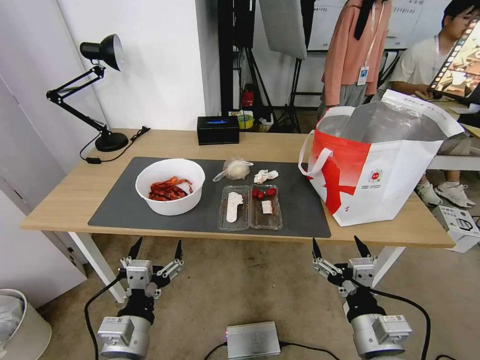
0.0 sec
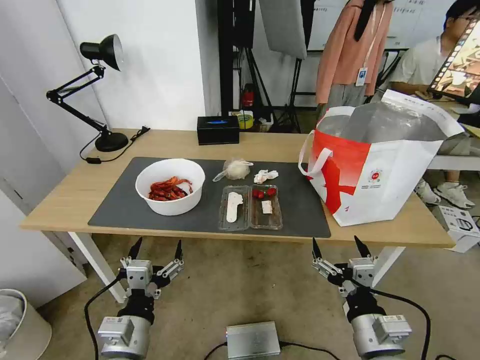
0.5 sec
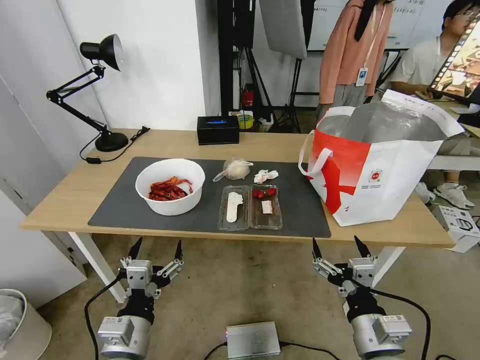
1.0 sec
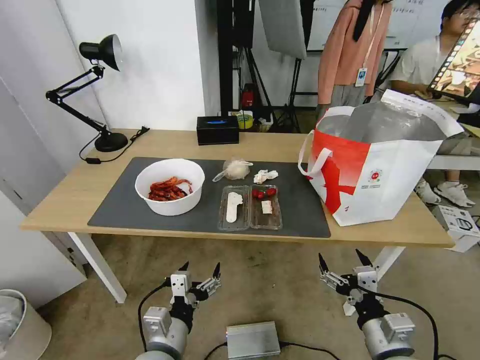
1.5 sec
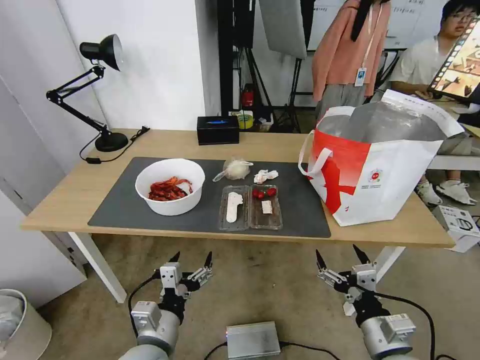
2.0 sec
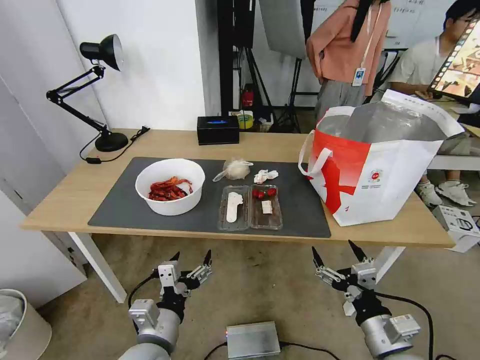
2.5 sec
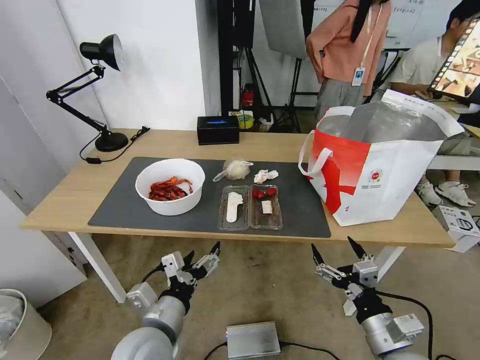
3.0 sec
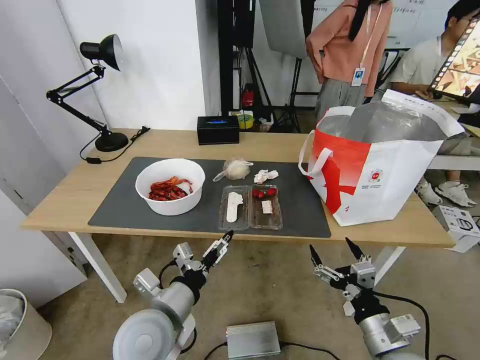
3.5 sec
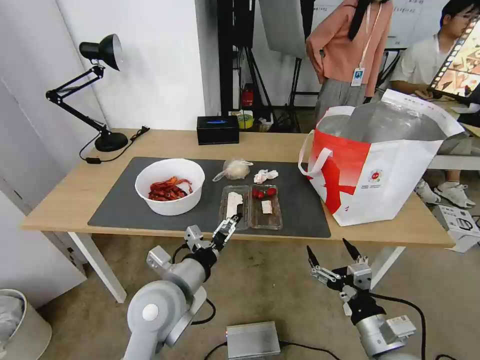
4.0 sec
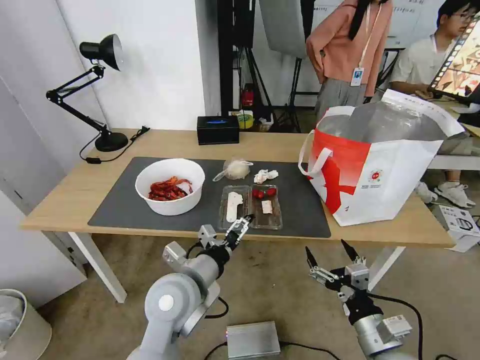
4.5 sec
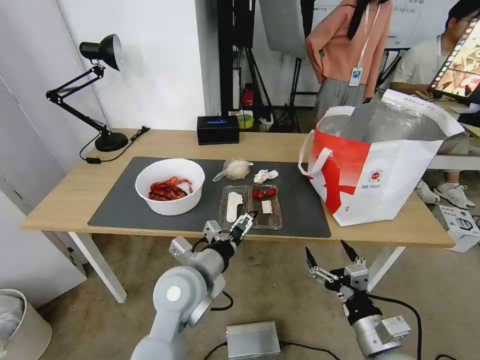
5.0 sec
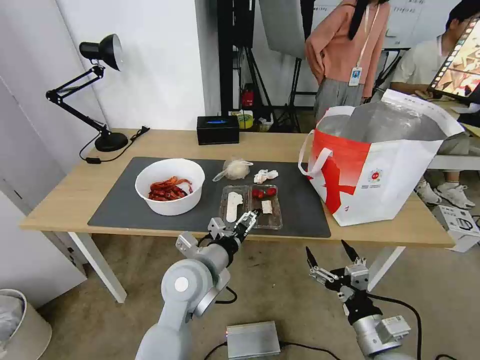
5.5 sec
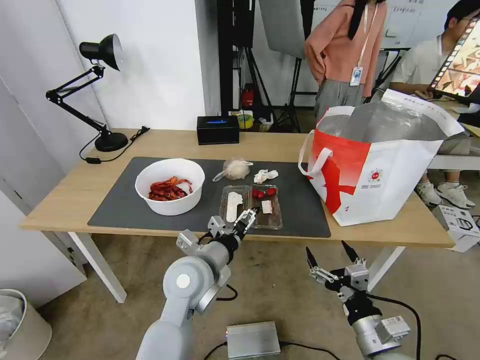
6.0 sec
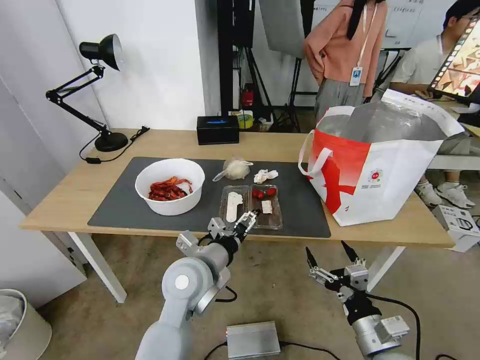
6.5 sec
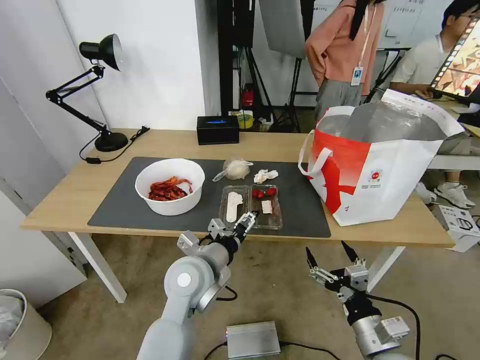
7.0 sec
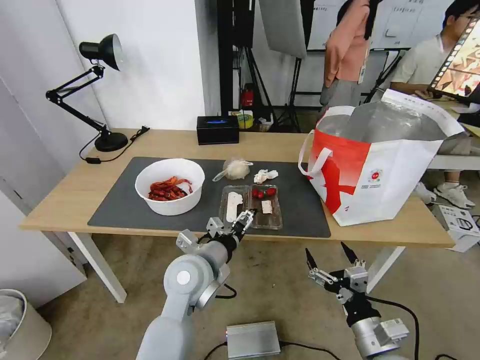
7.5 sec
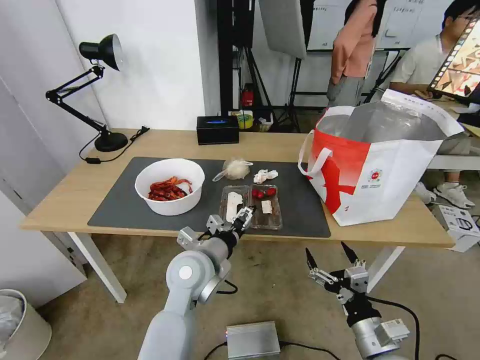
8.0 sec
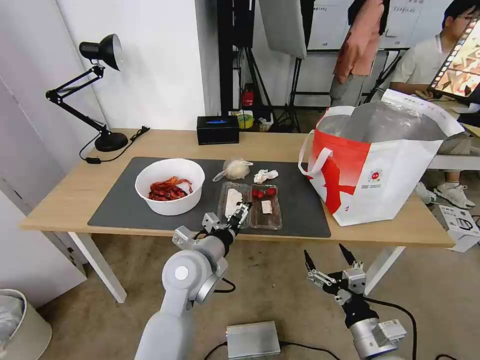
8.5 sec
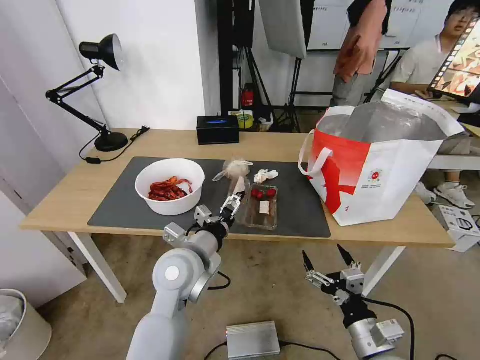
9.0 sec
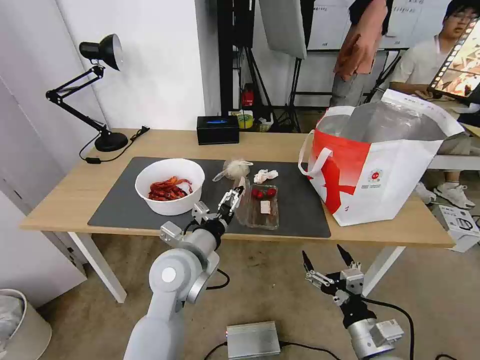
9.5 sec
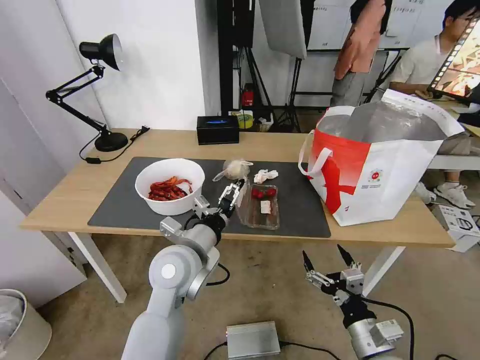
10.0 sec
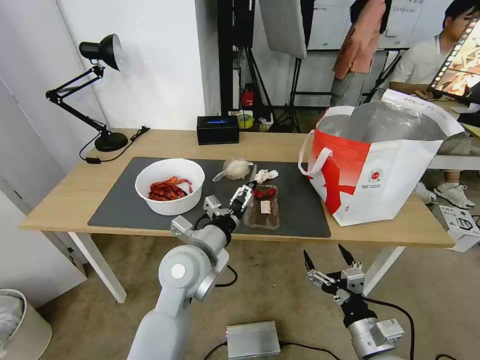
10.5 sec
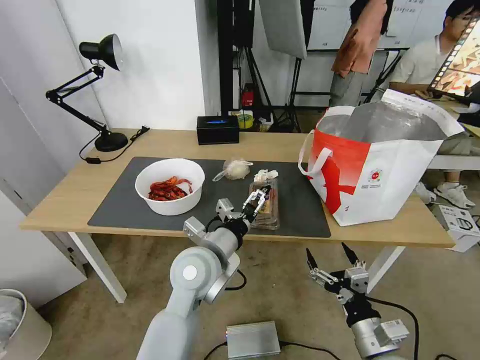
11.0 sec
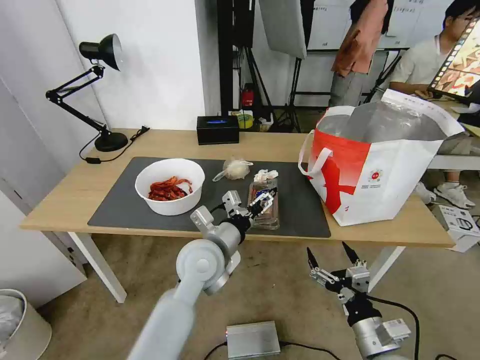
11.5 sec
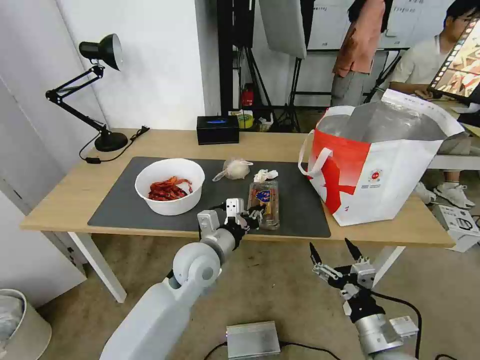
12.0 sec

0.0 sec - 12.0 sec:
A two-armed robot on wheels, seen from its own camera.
Task of the whole recording: Pick up the trash from the table and place it into the takeout bag.
2.0 sec - 4.0 sec: The left gripper goes approximately 10 cm upward and forward.
4.0 sec - 6.0 sec: The left gripper shifts by about 5 cm.
6.0 sec - 10.0 sec: There are only small adjustments of the grippers.
10.0 sec - 12.0 sec: The left gripper ends up about 5 cm from where it was, and closes its fingers.

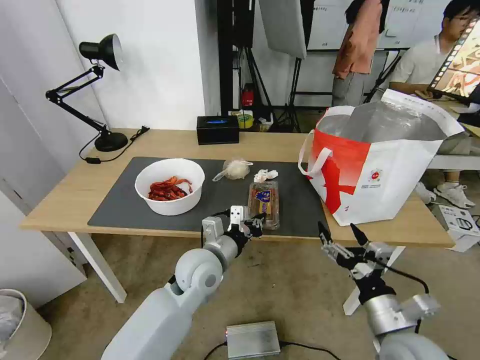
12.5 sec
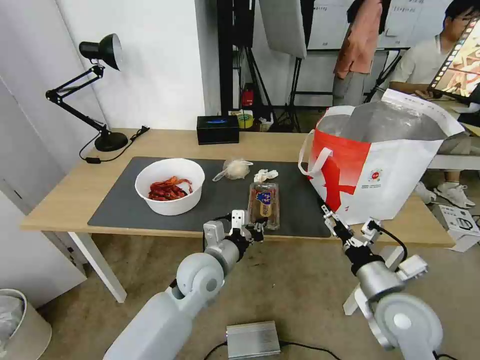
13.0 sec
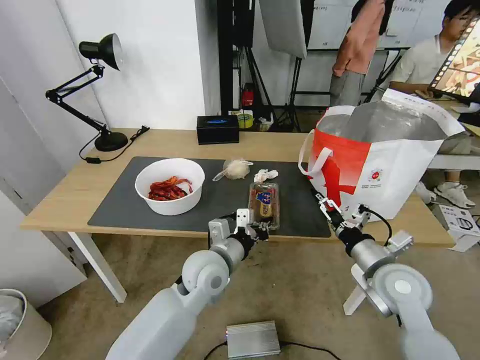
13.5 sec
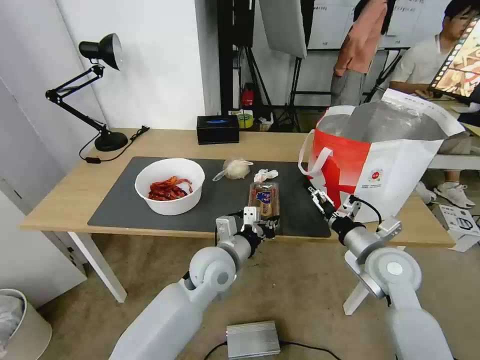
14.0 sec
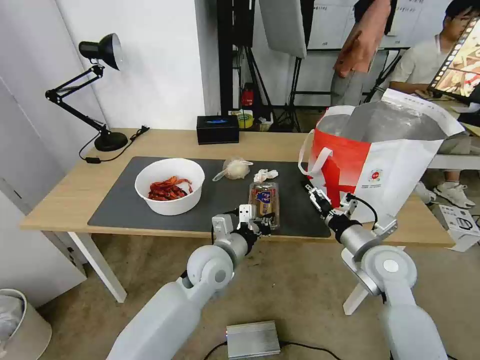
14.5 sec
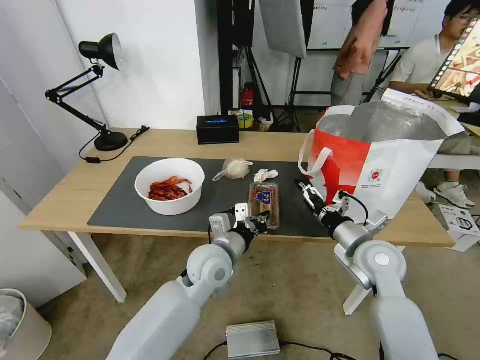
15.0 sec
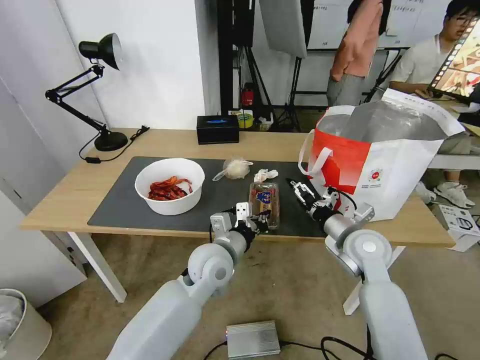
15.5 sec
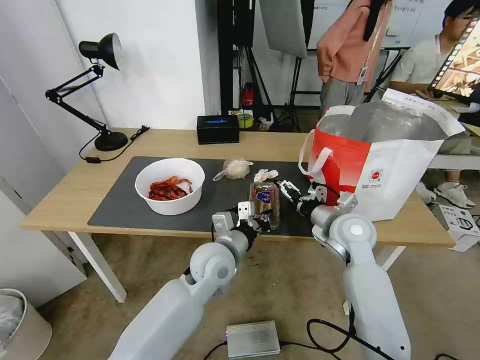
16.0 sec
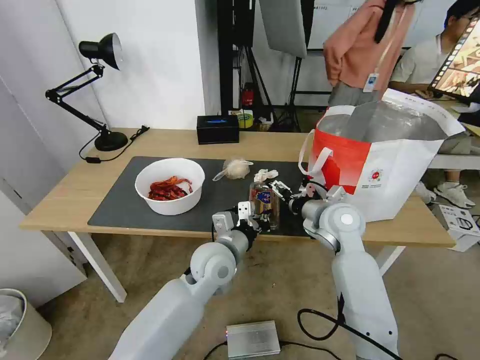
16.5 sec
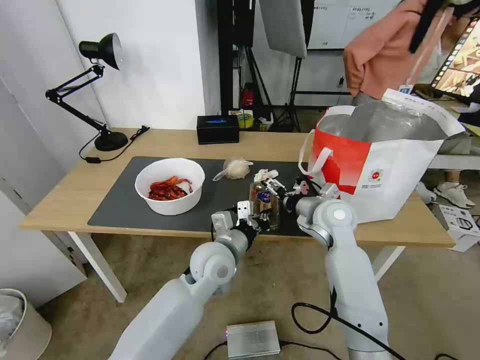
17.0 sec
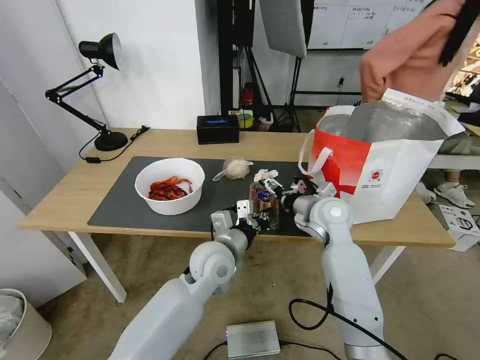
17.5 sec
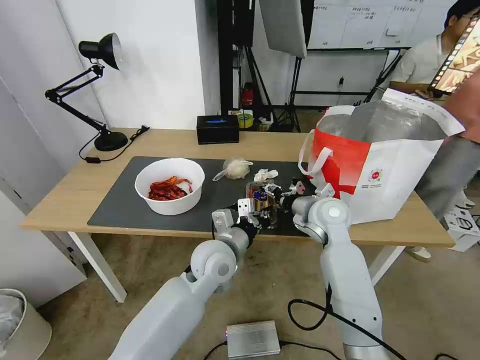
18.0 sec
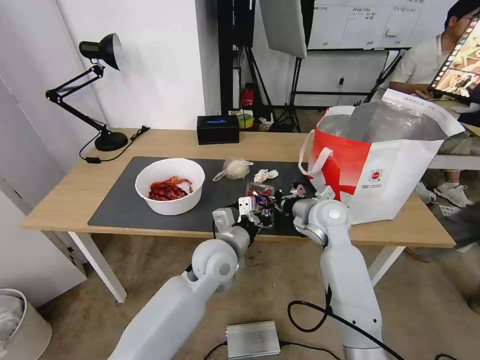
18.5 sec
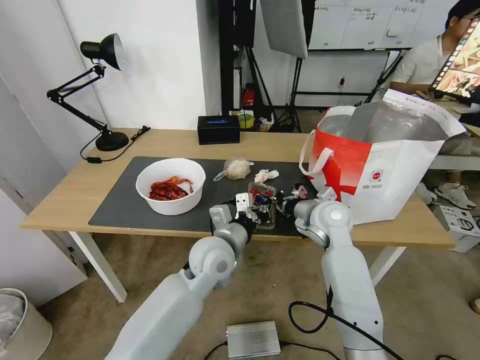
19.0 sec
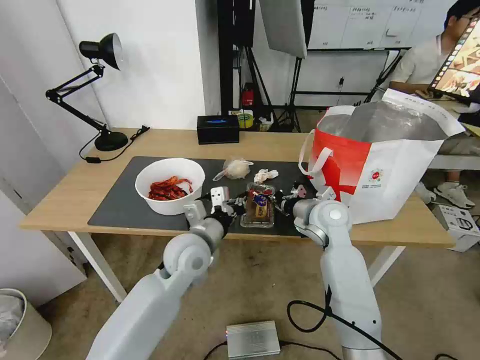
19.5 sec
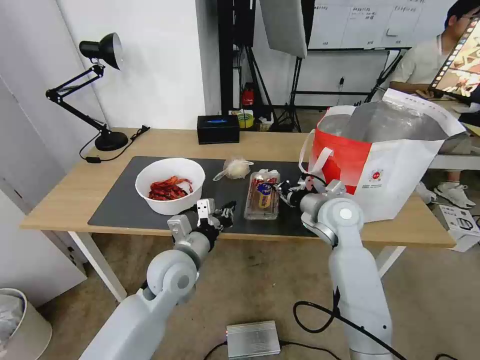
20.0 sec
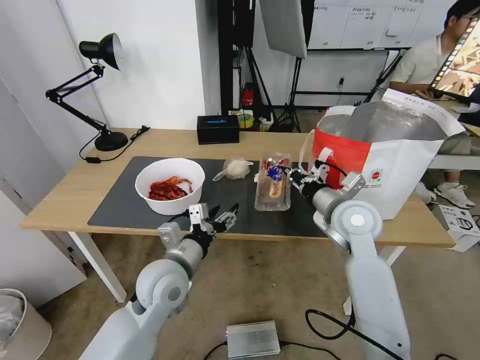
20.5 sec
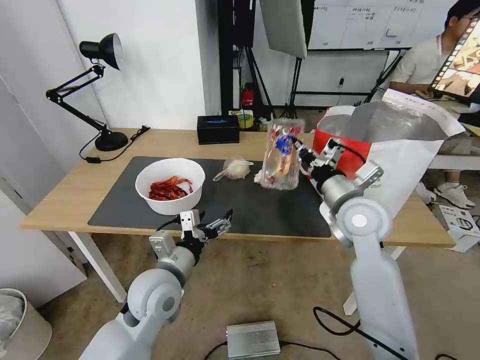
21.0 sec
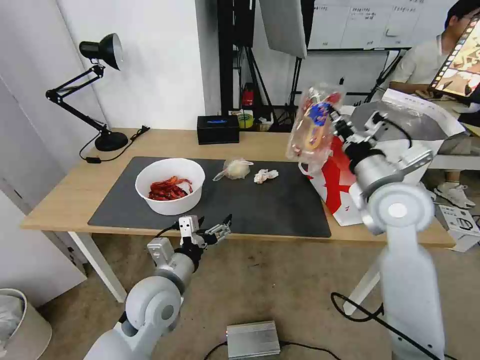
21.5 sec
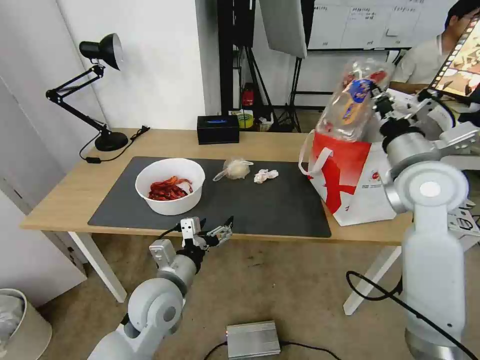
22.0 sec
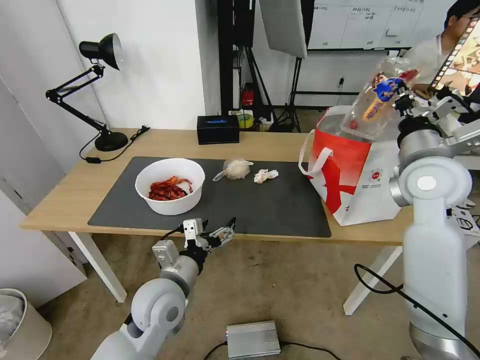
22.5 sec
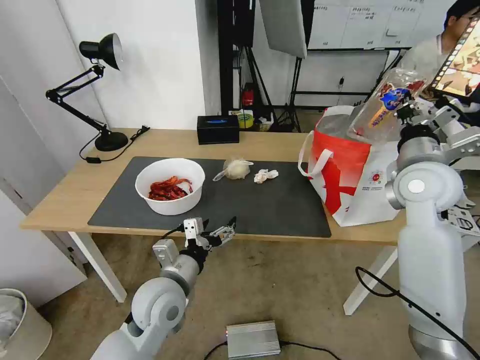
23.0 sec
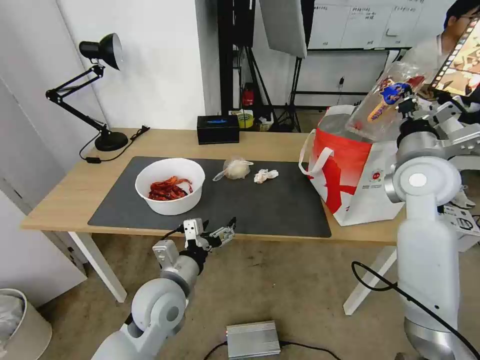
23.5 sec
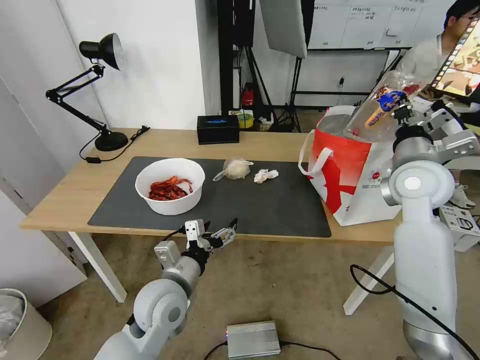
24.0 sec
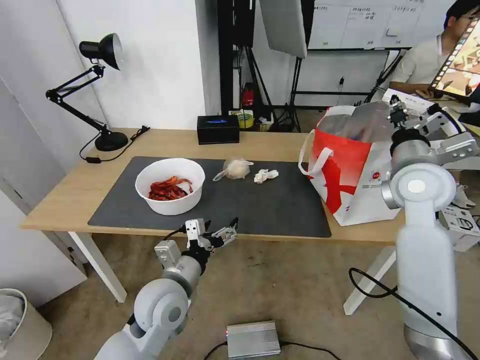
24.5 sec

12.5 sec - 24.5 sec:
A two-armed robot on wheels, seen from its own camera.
Task of the whole recording: Pick up the trash from the table and place it into the takeout bag.
12.5 sec - 14.5 sec: The right gripper shifts some 15 cm forward.
14.5 sec - 16.5 sec: The right gripper heads forward and to the left, covering some 10 cm.
16.5 sec - 18.5 sec: The right gripper closes.
18.5 sec - 20.5 sec: The left gripper is displaced to the left and backward by some 10 cm, and opens up. The right gripper changes place by about 5 cm.
20.5 sec - 22.5 sec: The right gripper shifts some 15 cm upward and to the right.
22.5 sec - 24.5 sec: The grippers stay close to where they were, moving slightly.

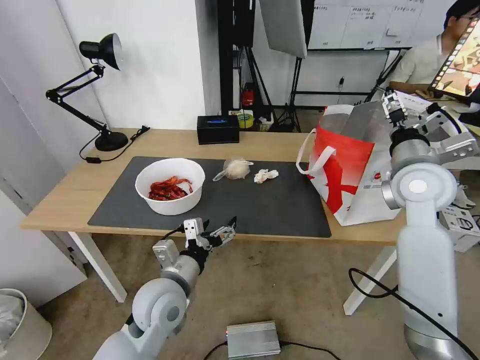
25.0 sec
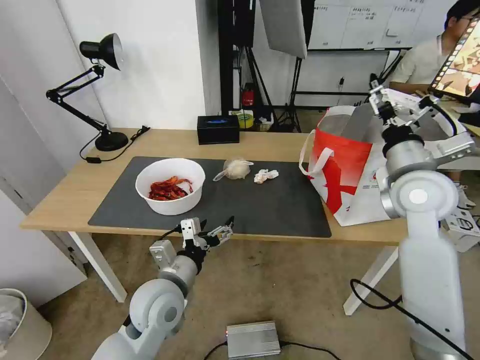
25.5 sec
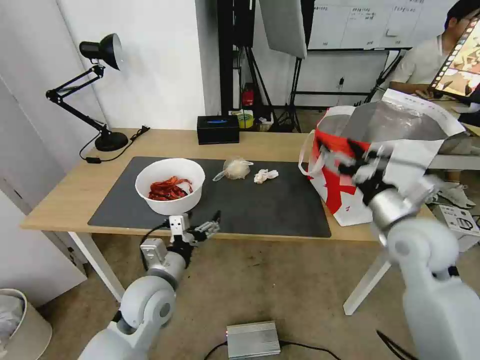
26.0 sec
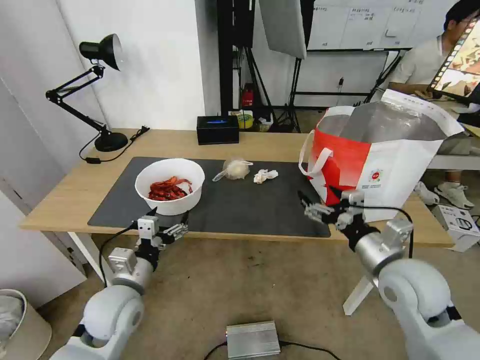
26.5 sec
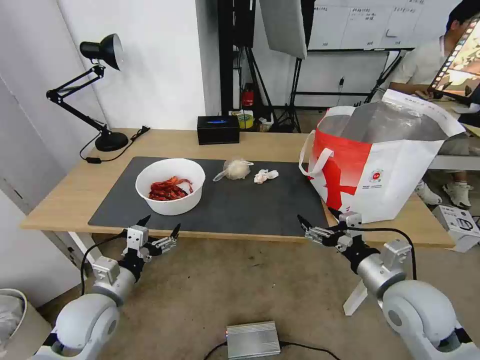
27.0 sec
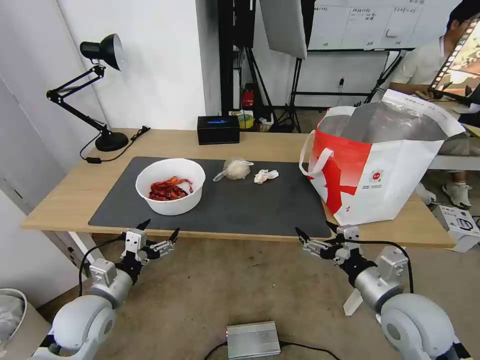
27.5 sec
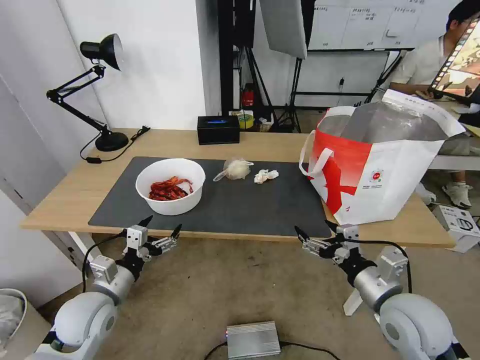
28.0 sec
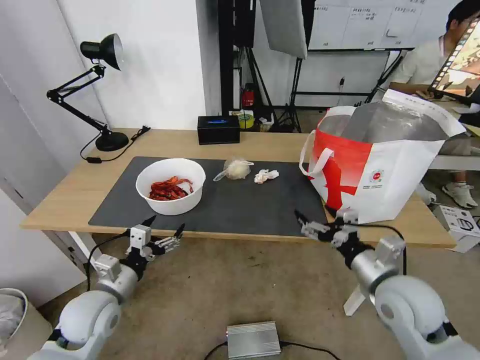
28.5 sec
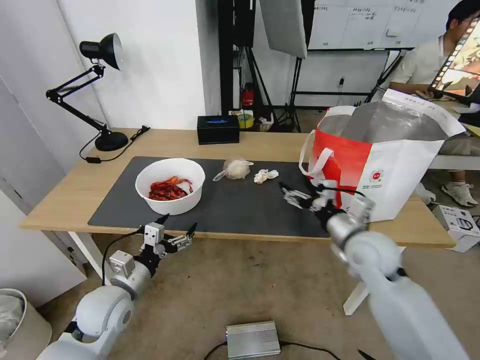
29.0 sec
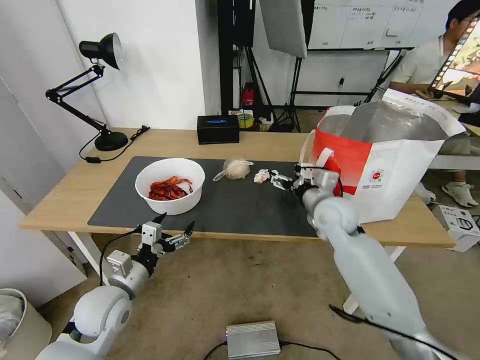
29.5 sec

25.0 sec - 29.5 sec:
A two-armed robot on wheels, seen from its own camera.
Task of the whole recording: Pick up the trash from the table and place it into the takeout bag.
25.0 sec - 27.0 sec: The right gripper moves backward and downward, approximately 20 cm. The left gripper moves to the left, some 15 cm.
27.0 sec - 29.5 sec: The right gripper goes approximately 20 cm forward.
